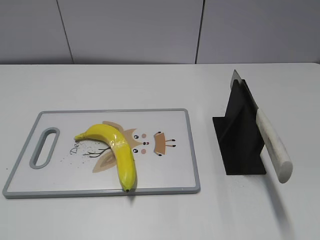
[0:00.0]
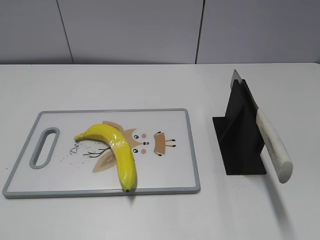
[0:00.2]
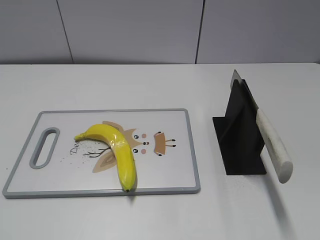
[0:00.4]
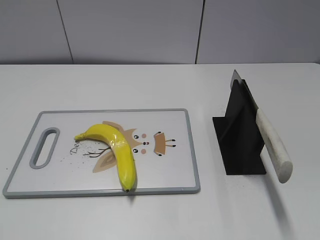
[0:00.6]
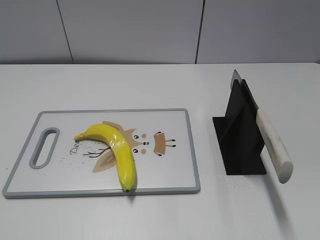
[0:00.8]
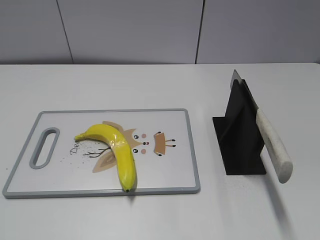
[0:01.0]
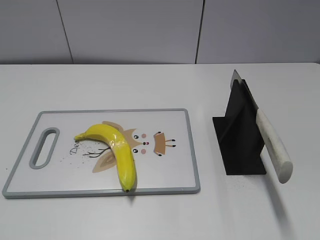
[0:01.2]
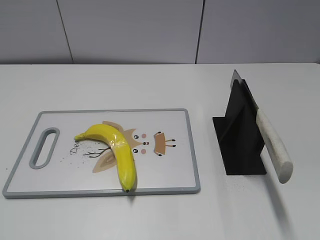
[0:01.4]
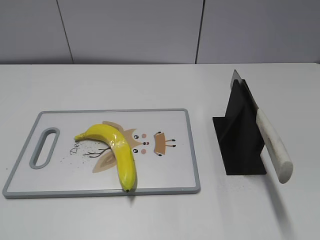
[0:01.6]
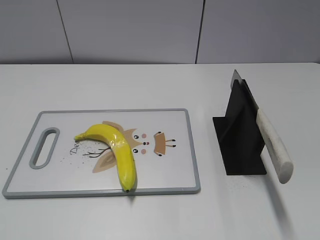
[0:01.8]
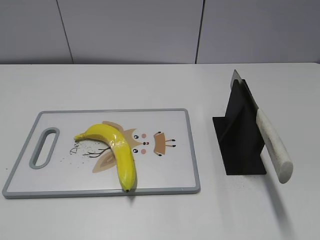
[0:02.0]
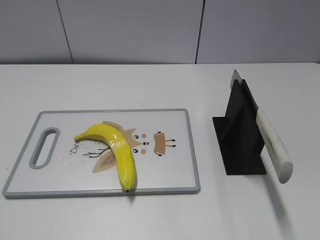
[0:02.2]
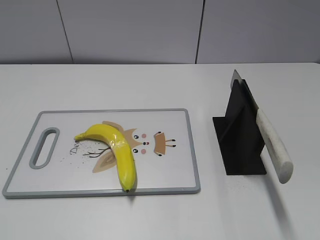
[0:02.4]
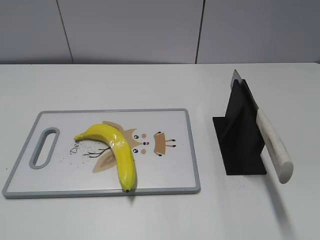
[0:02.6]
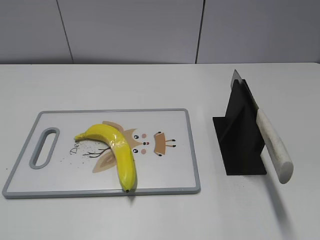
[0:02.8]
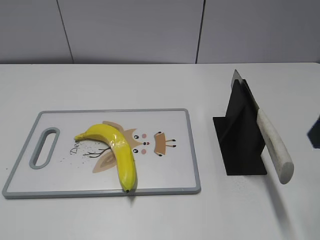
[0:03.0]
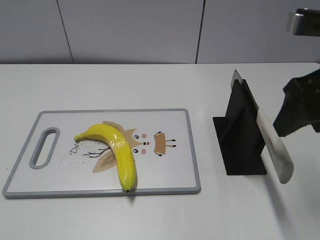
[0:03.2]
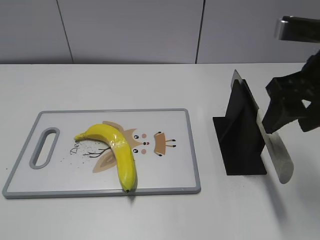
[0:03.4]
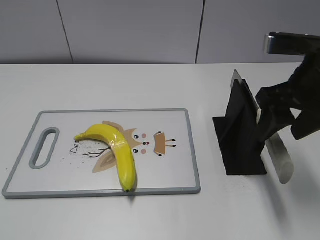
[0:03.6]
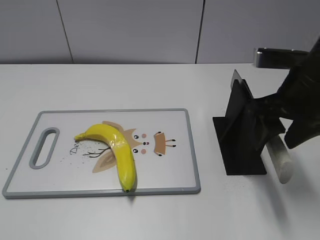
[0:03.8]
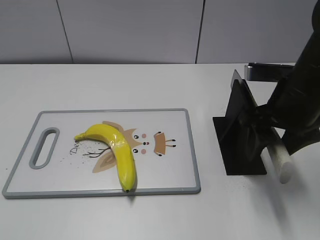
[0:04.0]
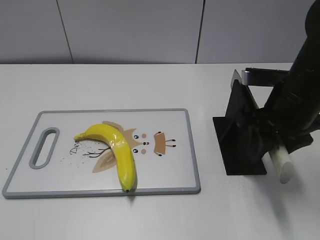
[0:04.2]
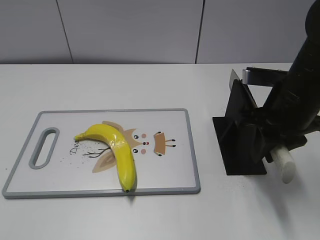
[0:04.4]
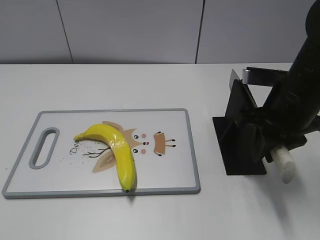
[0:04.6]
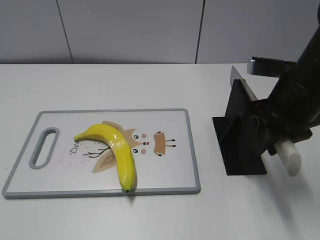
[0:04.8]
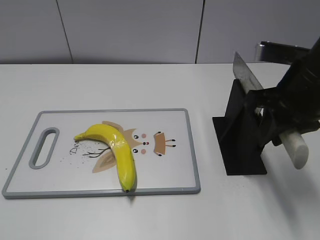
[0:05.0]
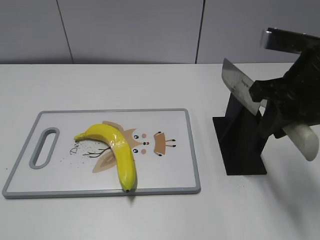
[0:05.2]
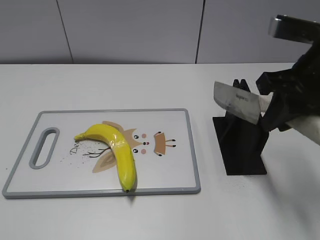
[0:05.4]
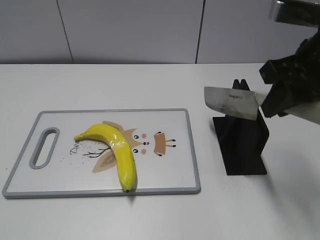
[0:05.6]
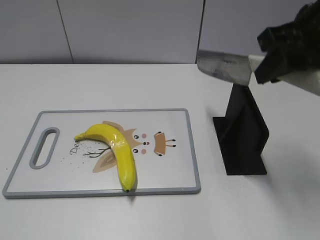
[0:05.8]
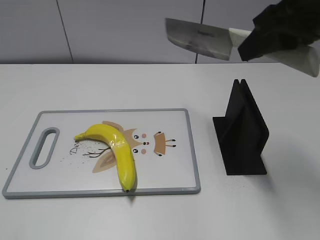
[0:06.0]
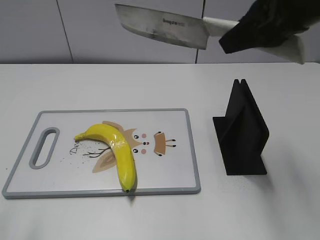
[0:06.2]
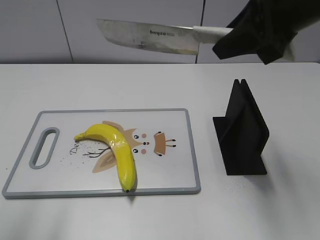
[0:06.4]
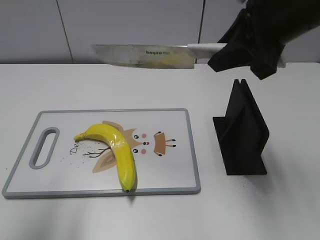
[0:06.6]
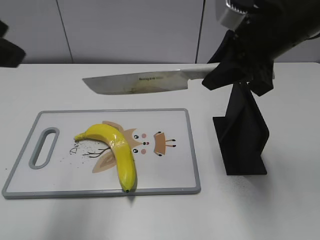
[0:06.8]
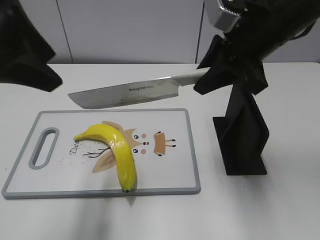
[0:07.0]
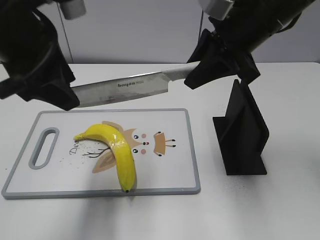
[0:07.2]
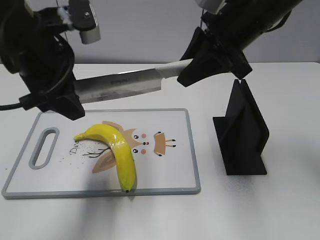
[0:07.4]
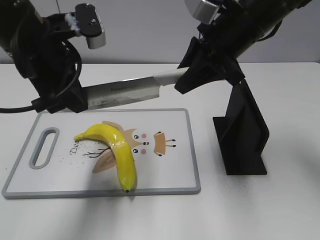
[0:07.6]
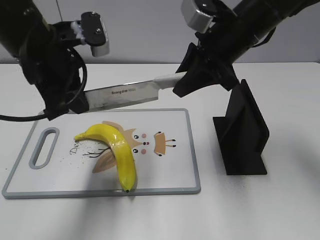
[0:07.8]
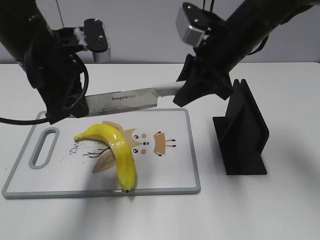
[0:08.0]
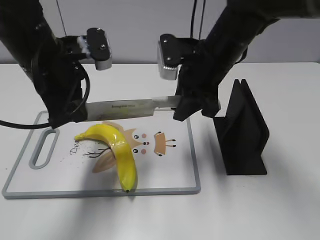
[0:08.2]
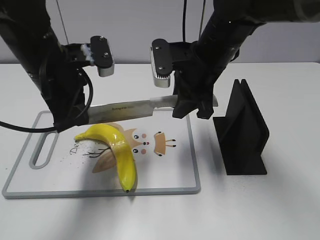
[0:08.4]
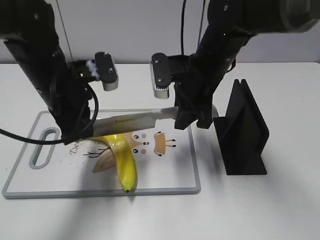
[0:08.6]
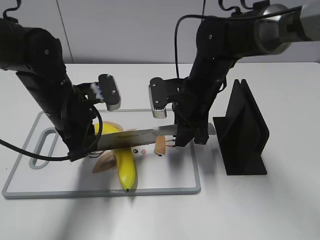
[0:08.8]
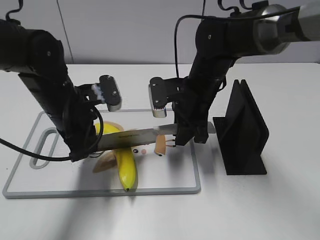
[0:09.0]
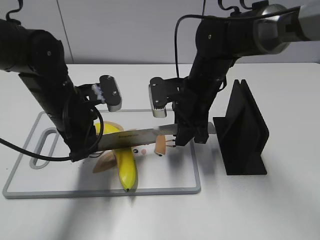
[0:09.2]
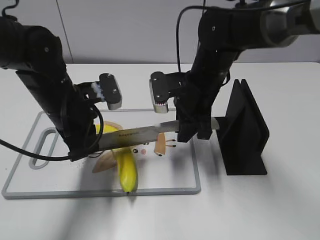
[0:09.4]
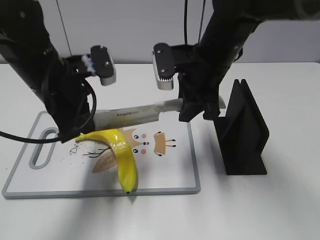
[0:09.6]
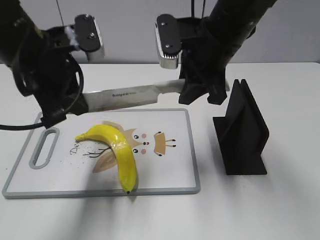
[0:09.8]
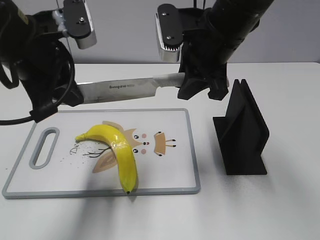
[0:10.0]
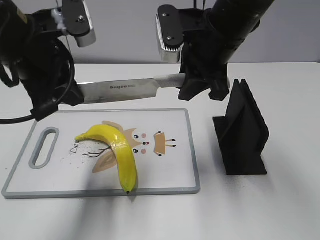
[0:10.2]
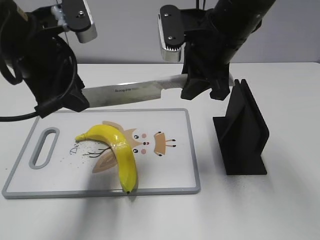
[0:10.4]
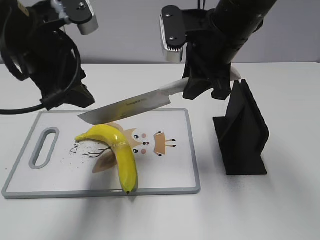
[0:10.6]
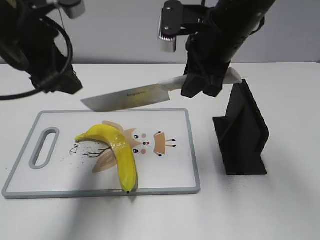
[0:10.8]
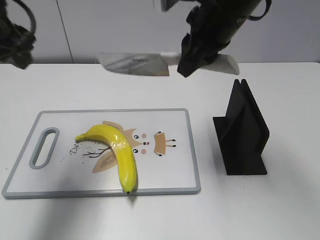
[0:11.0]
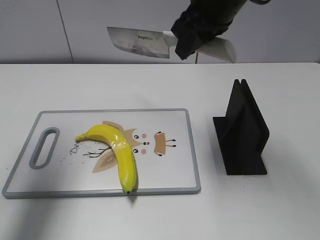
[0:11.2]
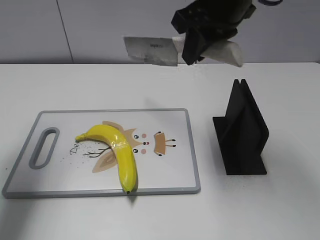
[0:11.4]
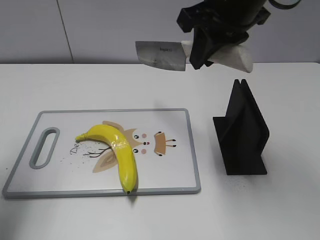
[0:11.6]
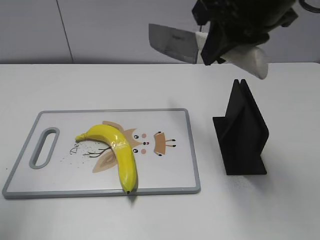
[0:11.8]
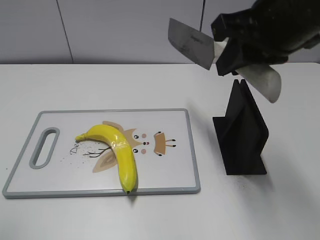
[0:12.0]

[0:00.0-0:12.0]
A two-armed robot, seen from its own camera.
Task of the whole recording: cut plastic banana.
Step, 0:00.0 to 0:05.4: Grab the knife handle with your right hand.
Step, 0:05.6 to 0:09.4: Lift the knife with your right hand.
Step, 0:09.6 to 0:11.4: Cut the banana with your right hand.
0:01.6 to 0:03.0: The right gripper heads forward, covering some 20 cm.
0:03.0 to 0:04.4: The right gripper heads downward and forward, covering some 15 cm, and closes.
0:04.4 to 0:06.0: The left gripper goes some 5 cm forward, while the right gripper goes about 15 cm upward.
0:06.0 to 0:07.6: The right gripper moves forward, downward and to the left, about 10 cm; the left gripper is displaced forward and to the right by roughly 30 cm, and closes.
0:07.6 to 0:09.0: Both grippers move downward, about 15 cm.
0:09.0 to 0:10.4: The two grippers go approximately 15 cm upward. The left gripper opens its fingers.
0:10.4 to 0:12.0: The right gripper shifts some 10 cm backward, upward and to the right. Meanwhile the left gripper shifts about 25 cm backward, to the left and upward.

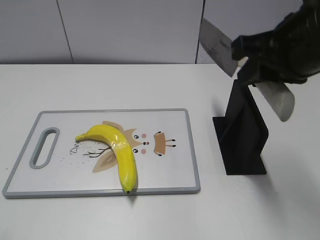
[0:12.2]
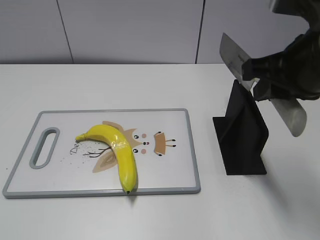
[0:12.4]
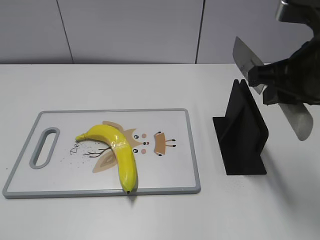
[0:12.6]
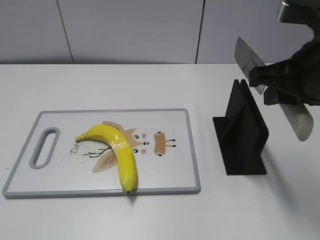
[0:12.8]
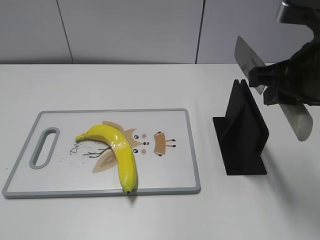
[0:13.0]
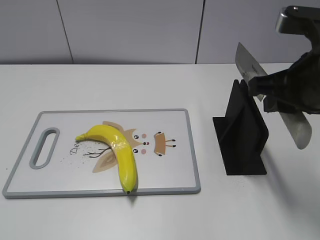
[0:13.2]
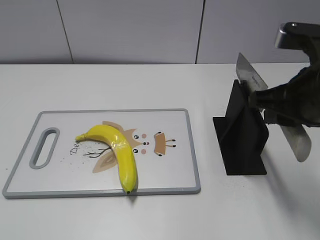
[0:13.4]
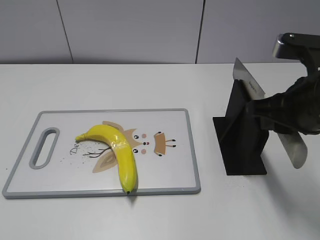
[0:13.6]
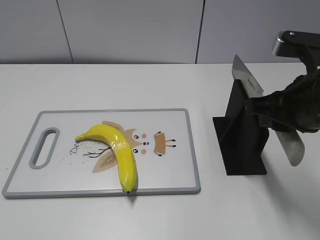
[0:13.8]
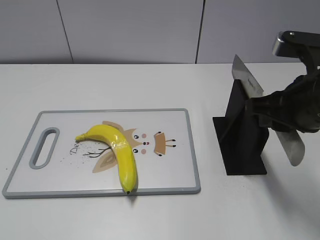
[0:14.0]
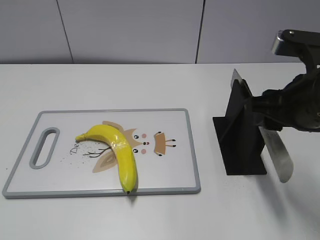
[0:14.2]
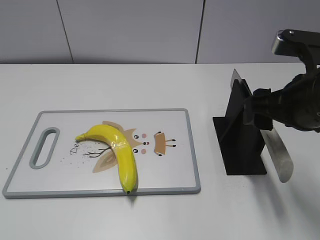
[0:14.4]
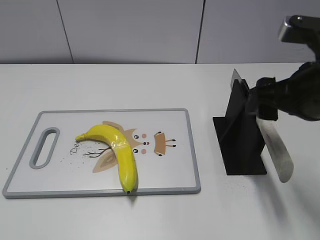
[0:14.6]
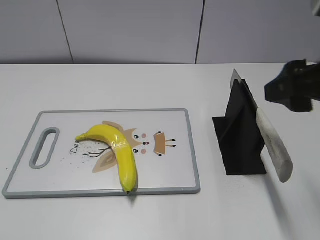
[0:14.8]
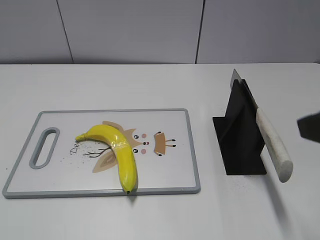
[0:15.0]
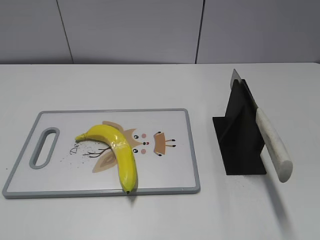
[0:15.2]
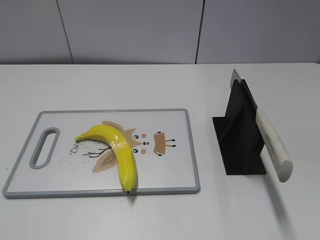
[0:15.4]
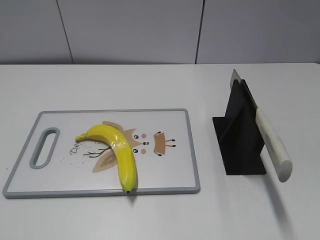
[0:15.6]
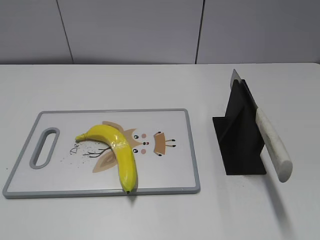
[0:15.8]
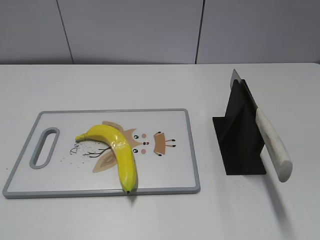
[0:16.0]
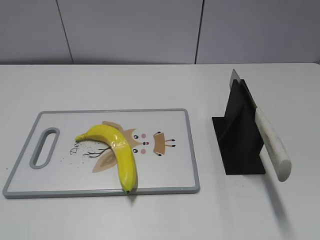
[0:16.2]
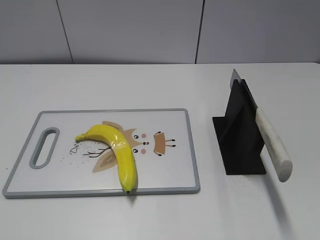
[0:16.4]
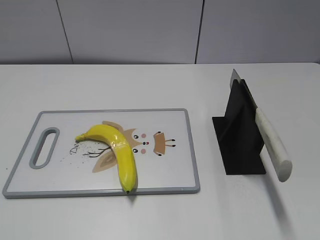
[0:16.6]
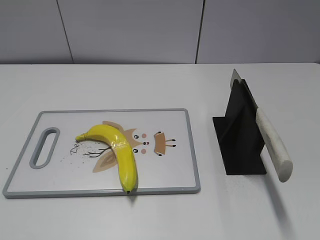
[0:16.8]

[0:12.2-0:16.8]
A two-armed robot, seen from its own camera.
Task of the whole recording: cut plastic banana.
Step, 0:12.2 to 0:12.8: Lift the knife with your right hand.
Step, 0:13.0 to 0:16.8: Place the knife on the storage rack with your right hand.
0:12.2 to 0:13.8: The right gripper moves downward, some 5 cm.
0:13.8 to 0:15.2: The right gripper moves backward, to the right and upward, roughly 15 cm, and opens.

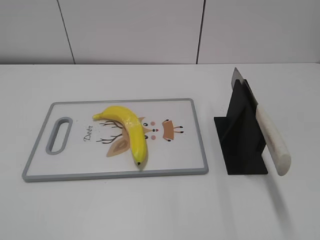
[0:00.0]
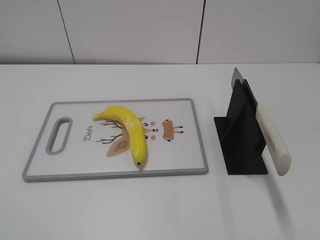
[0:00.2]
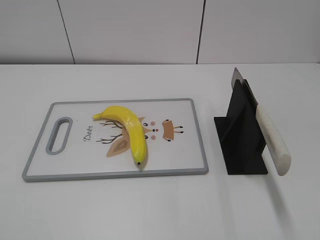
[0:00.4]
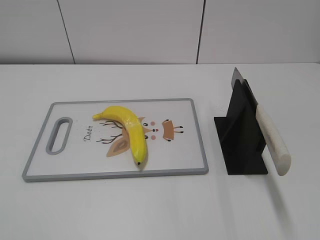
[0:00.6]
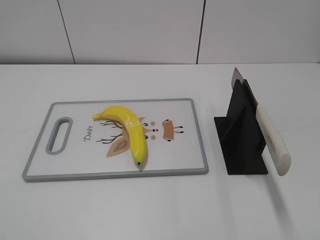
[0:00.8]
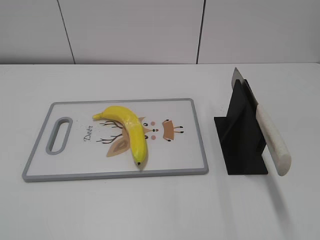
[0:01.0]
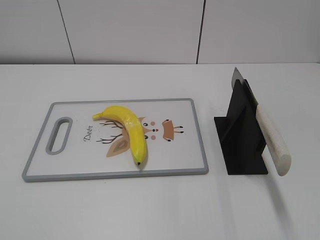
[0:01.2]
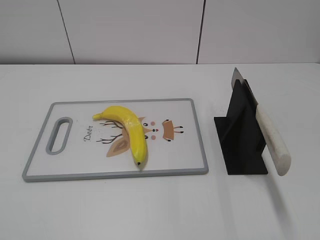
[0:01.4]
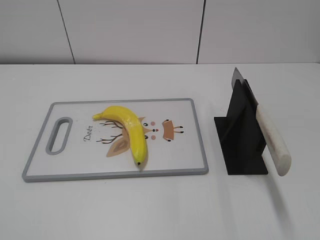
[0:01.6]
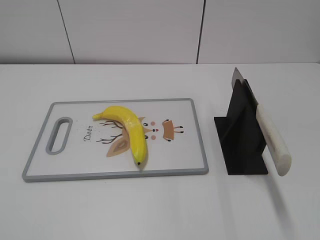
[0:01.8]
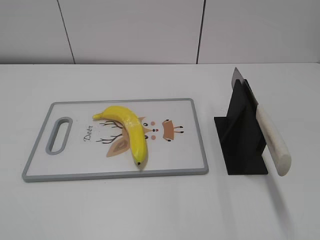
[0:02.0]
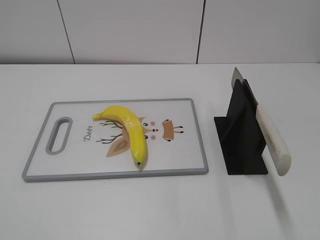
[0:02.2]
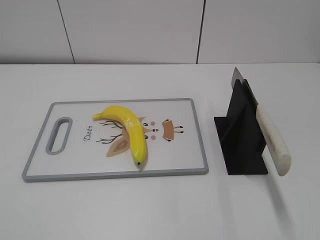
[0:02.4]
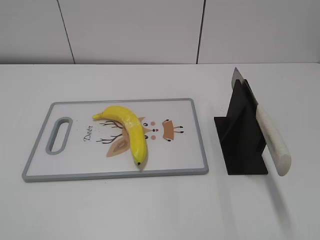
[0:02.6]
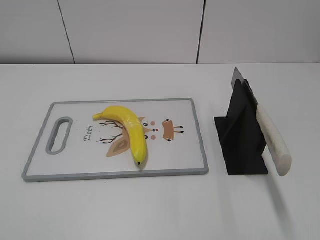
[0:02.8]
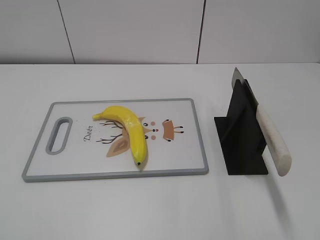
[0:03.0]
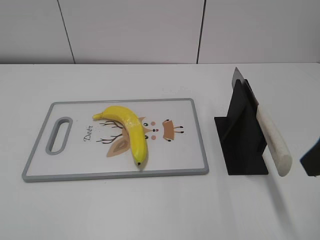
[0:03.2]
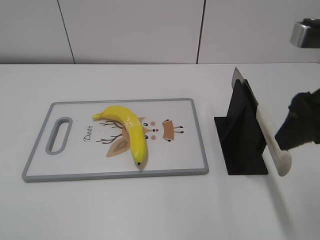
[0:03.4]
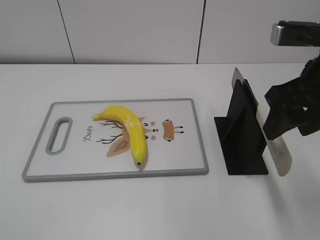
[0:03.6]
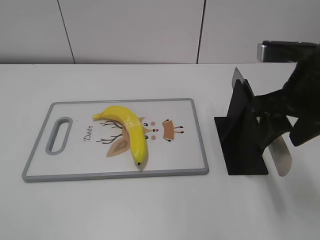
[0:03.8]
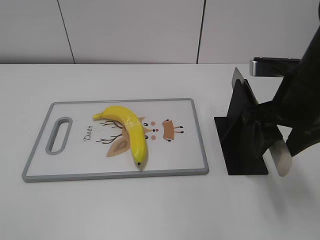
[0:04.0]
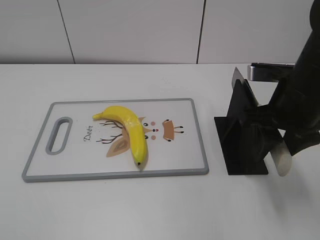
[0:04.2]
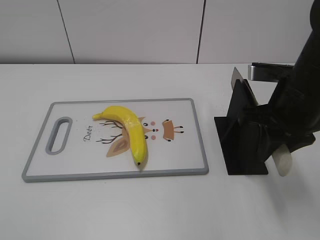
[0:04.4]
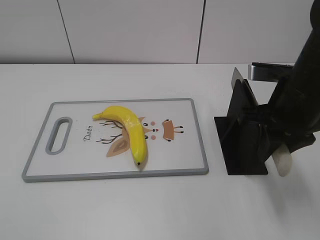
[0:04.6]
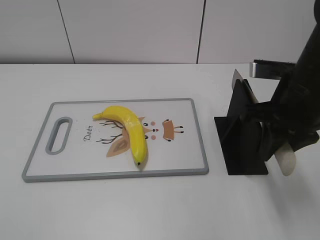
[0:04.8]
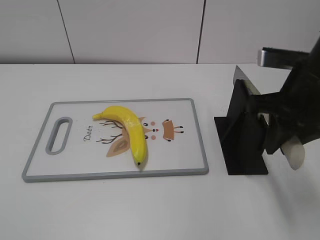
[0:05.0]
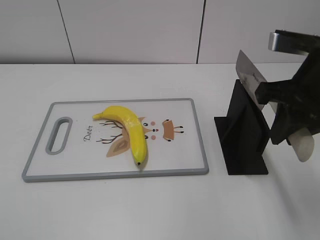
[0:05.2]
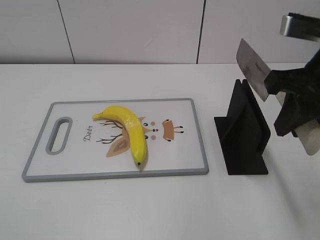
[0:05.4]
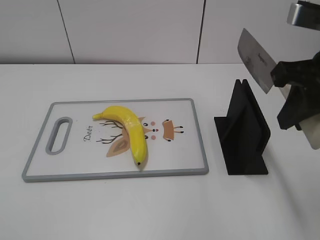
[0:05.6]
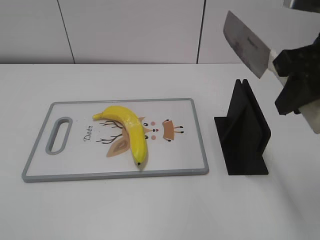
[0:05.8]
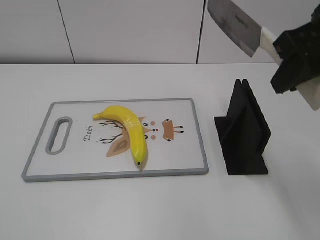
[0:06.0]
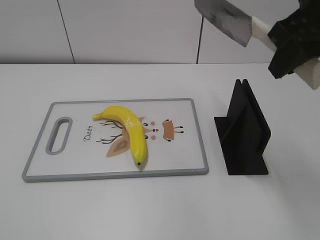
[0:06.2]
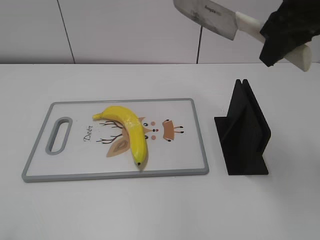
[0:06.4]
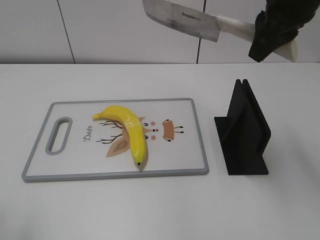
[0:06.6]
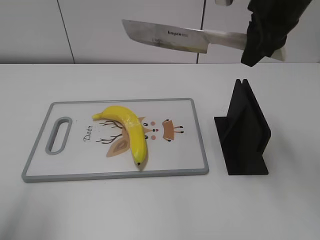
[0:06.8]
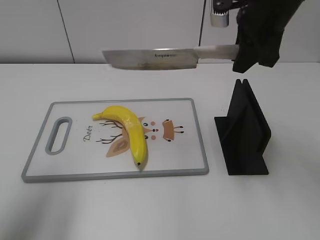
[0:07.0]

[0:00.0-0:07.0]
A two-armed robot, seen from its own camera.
Task of the whole recording: cut plastic banana.
Step, 0:00.0 to 0:05.6: Grab the knife handle with your right hand.
0:02.8 to 0:04.2: The right gripper heads forward, downward and to the left, covering roughly 20 cm.
0:04.2 to 0:05.6: The right gripper goes approximately 10 cm upward, and closes up.
0:05.6 to 0:07.0: The left gripper travels forward by approximately 20 cm; the right gripper goes some 15 cm forward.
